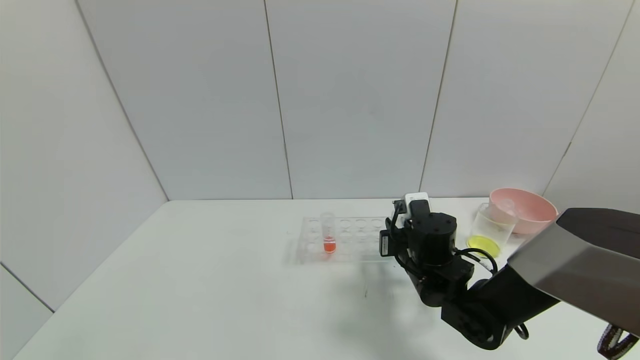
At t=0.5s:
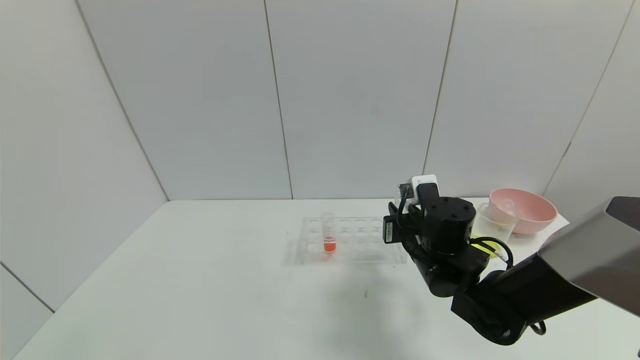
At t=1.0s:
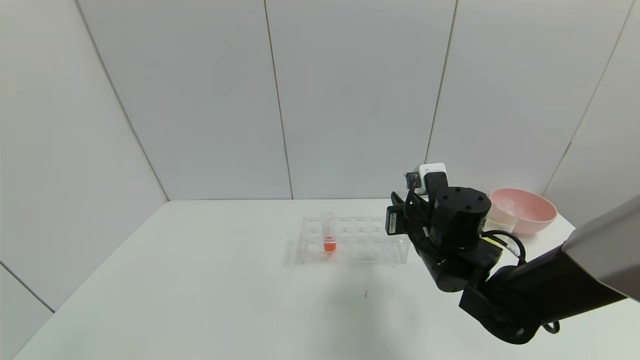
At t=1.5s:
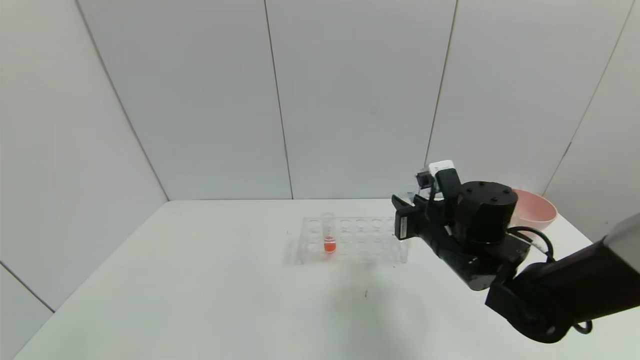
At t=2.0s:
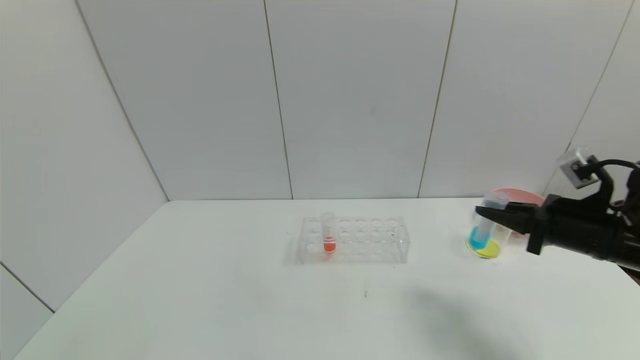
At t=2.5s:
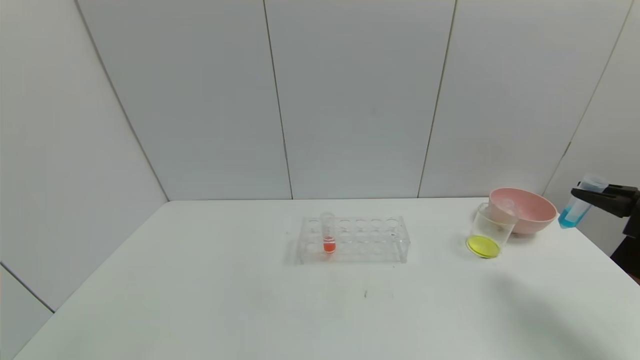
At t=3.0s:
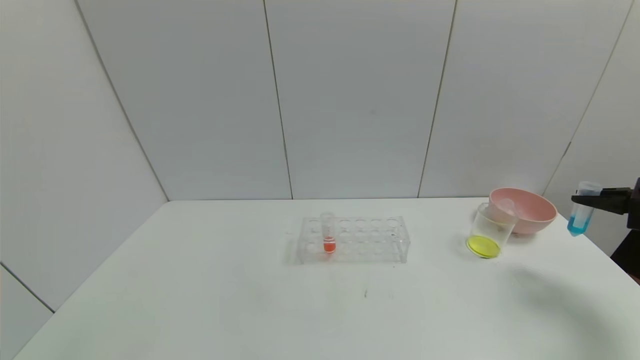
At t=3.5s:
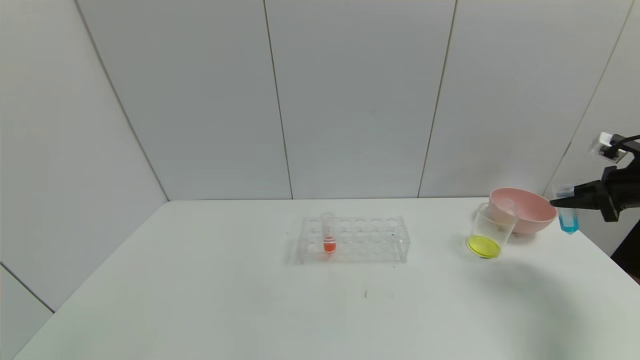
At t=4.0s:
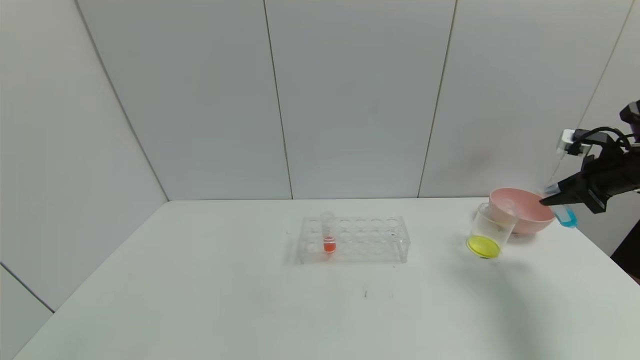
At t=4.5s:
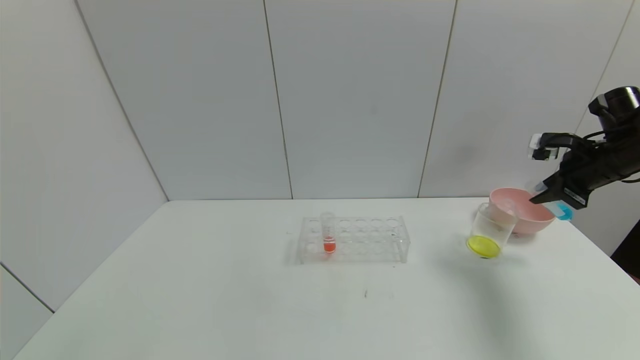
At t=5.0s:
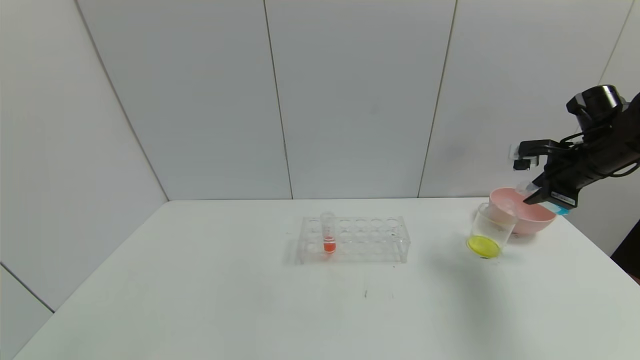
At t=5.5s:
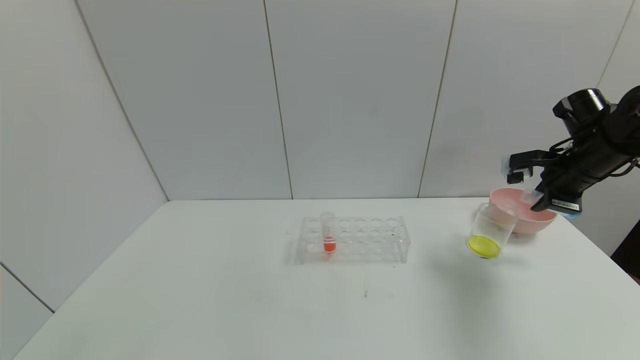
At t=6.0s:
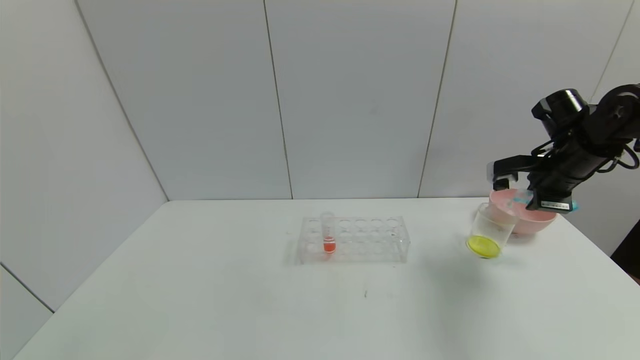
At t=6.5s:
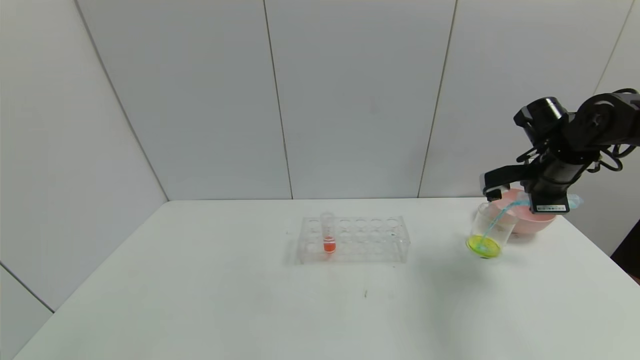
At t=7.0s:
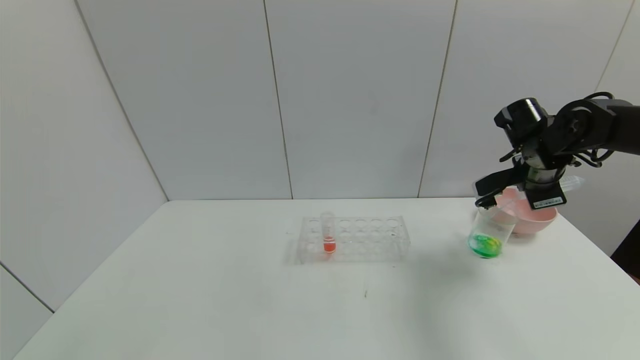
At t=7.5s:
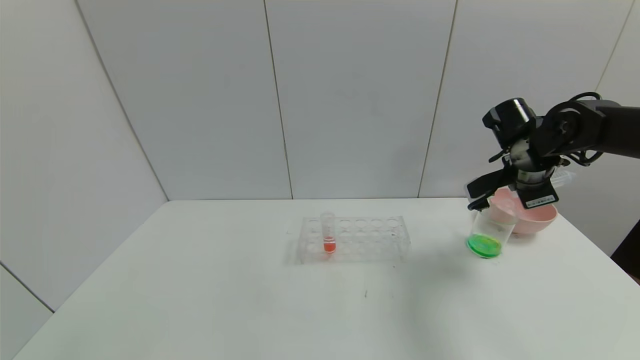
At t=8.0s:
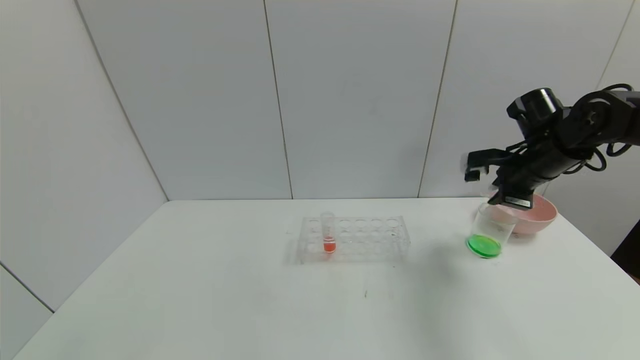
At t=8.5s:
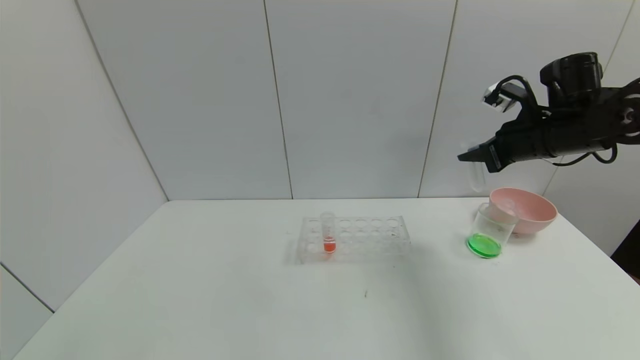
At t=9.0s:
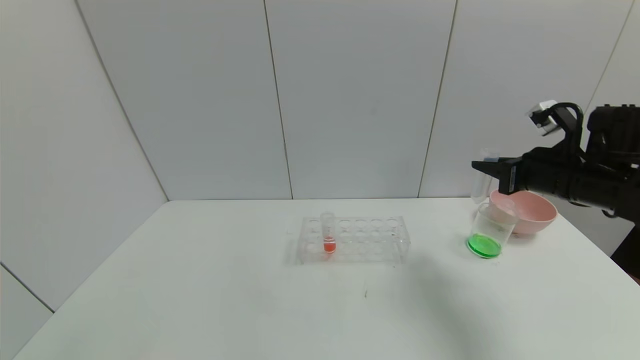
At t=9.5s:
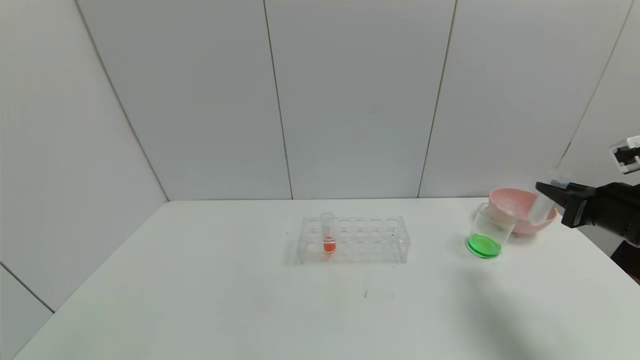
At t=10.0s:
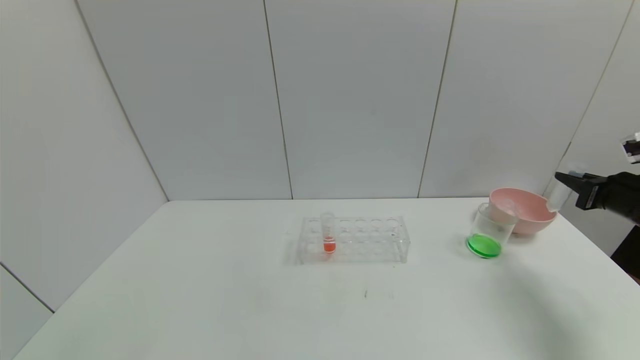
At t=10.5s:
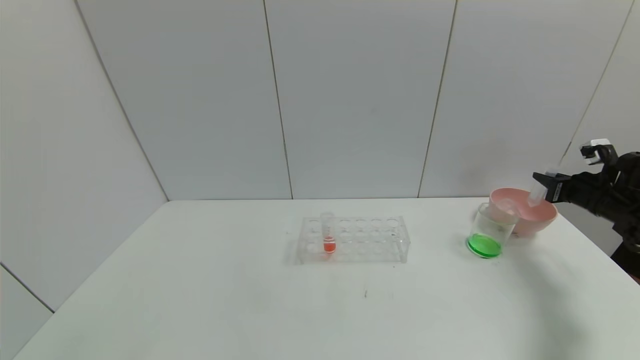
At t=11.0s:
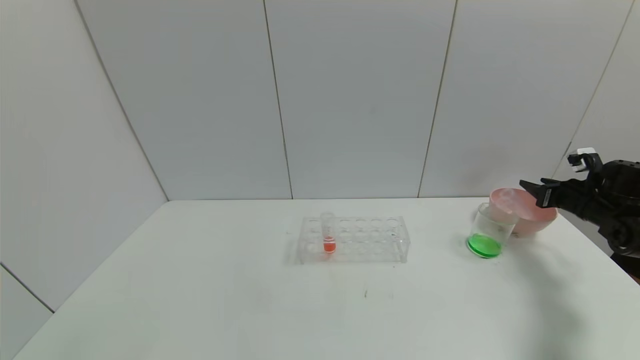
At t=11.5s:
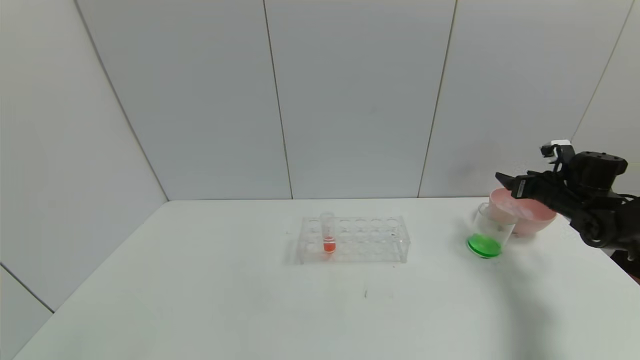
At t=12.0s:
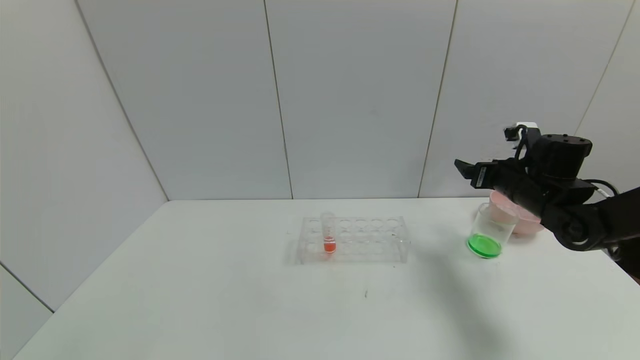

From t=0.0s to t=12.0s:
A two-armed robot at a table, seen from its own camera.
Task of the whole recording: pick up the test tube with yellow pigment and the test tube with blue pigment by grippers and pour them into the beaker.
Step, from t=1.5s to t=9.5s: Pour the blue reagent into the graduated cylinder with the right gripper.
From t=0.0s to t=2.0s: The right gripper travels to the right and upward by roughly 25 cm.
From t=2.0s to t=4.0s: The right gripper shifts about 15 cm to the right, forward and upward.
From t=4.0s to t=6.0s: The right gripper moves to the left, approximately 10 cm.
From t=8.0s to t=10.0s: The right gripper is displaced to the right and backward by roughly 15 cm.
From t=10.0s to t=12.0s: The right gripper moves to the left and forward, about 15 cm, and opens its fingers.

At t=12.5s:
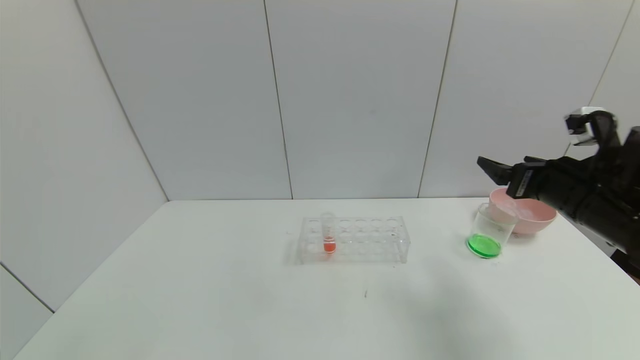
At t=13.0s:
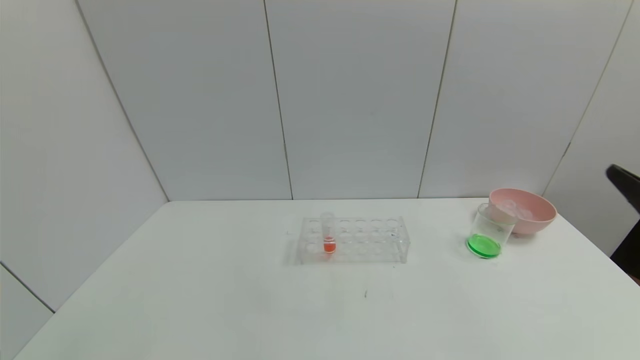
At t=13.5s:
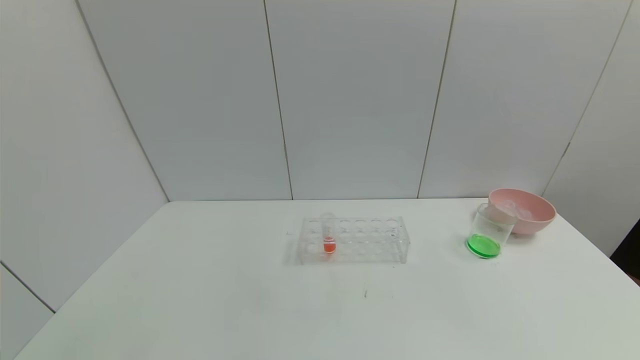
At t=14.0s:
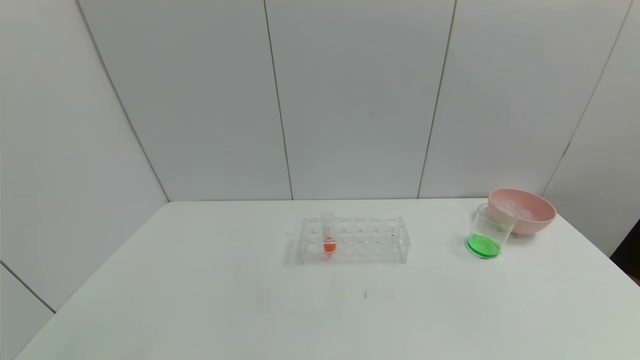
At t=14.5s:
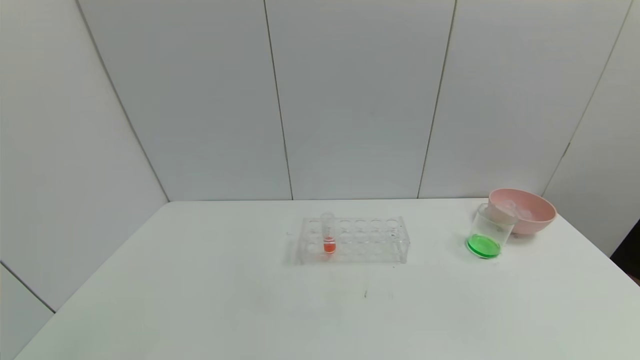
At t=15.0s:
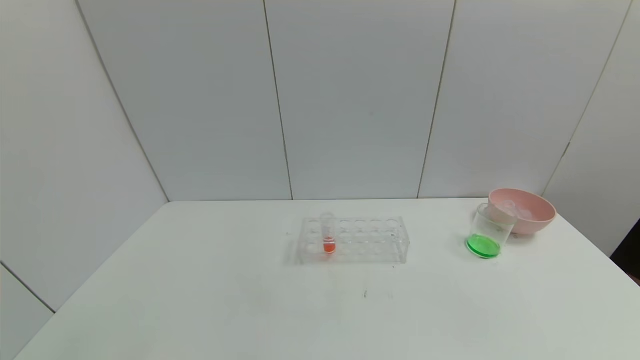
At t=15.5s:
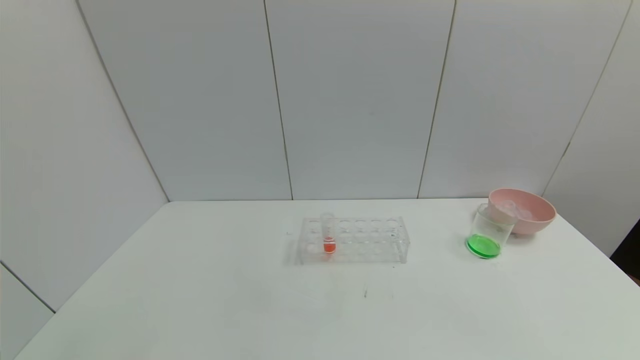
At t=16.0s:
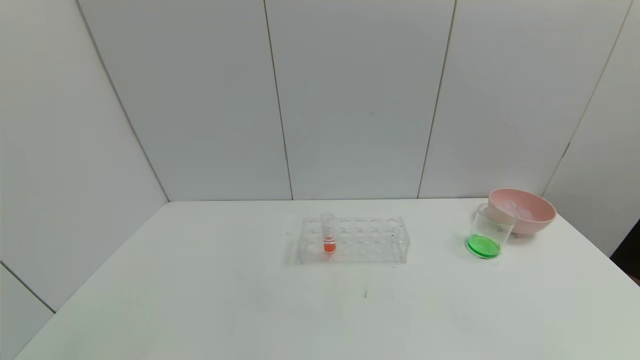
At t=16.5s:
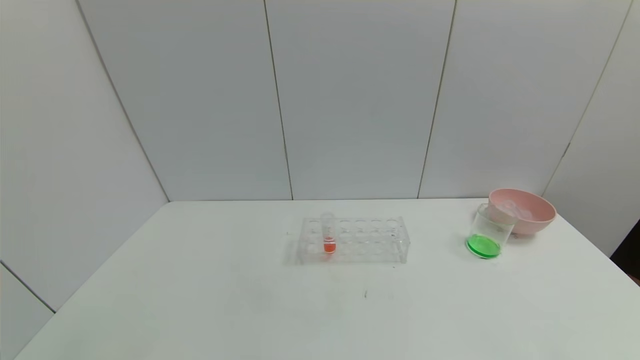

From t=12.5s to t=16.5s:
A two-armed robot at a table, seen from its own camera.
Task of the whole recording: pick up the test tube with yellow pigment and the test tube with blue pigment by grippers and pour them into the beaker.
Step, from t=12.5s to t=14.5s: Place the test tube into the bowl with the right gripper.
From t=12.5s to t=14.5s: The right gripper shifts roughly 30 cm backward.

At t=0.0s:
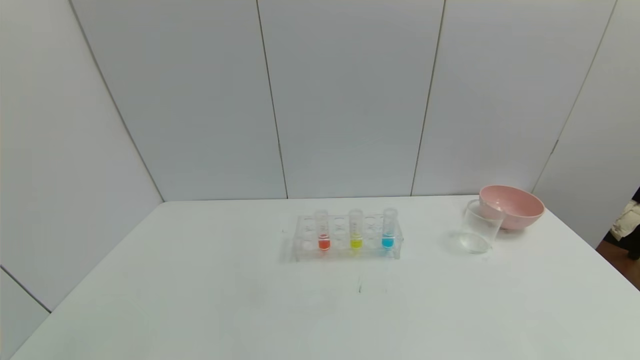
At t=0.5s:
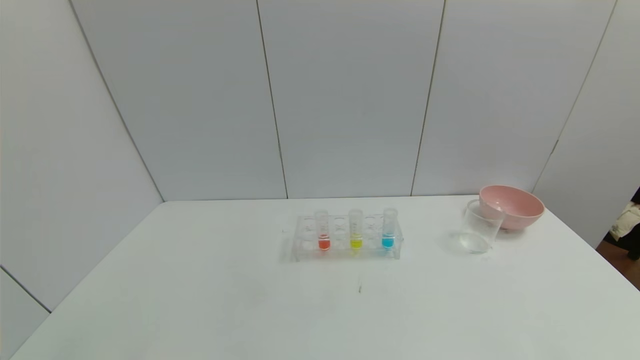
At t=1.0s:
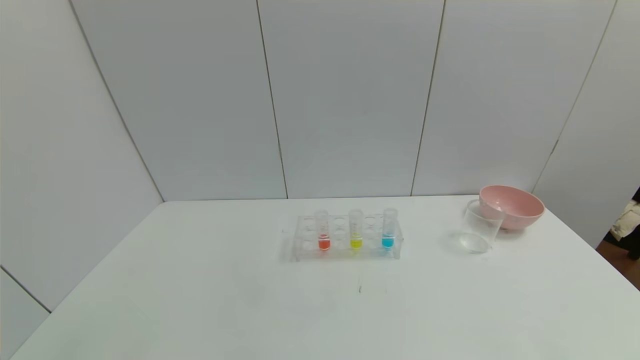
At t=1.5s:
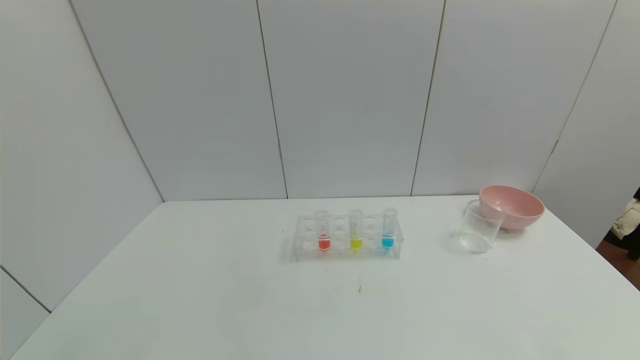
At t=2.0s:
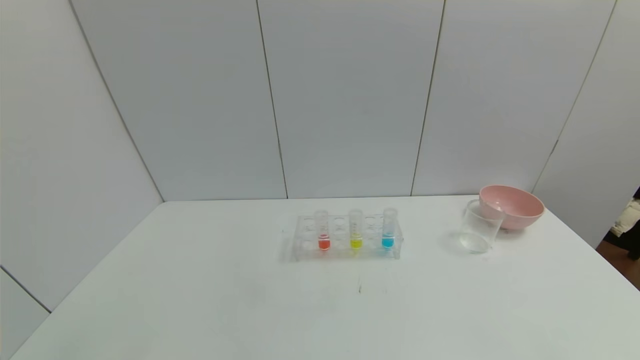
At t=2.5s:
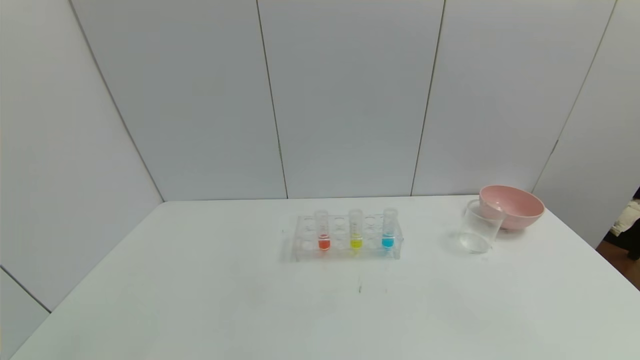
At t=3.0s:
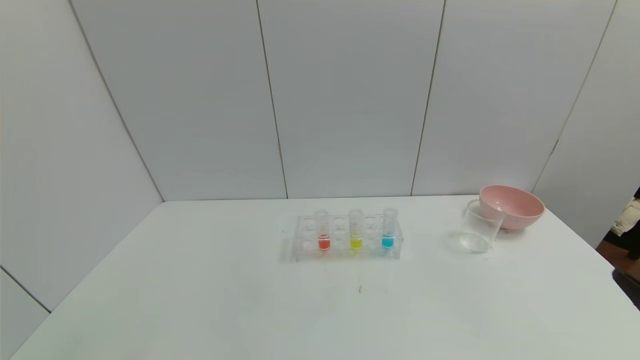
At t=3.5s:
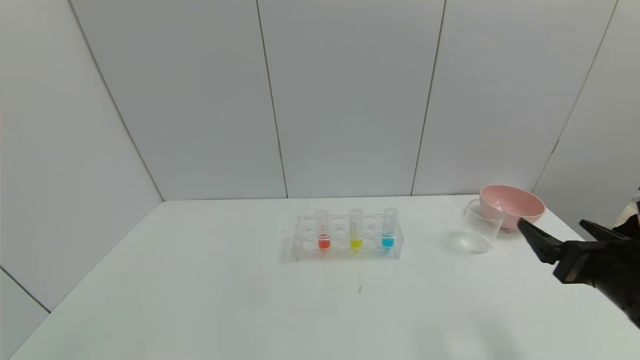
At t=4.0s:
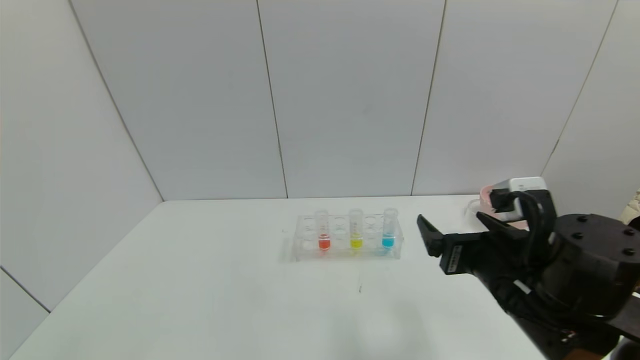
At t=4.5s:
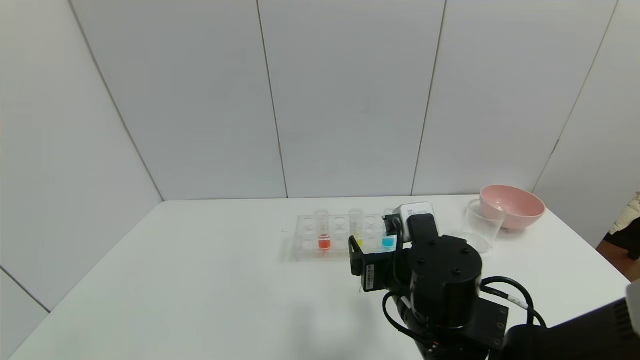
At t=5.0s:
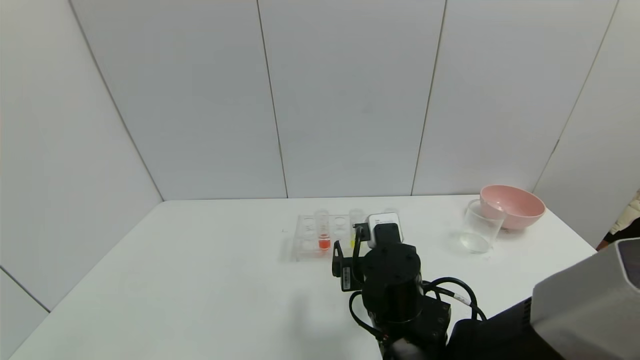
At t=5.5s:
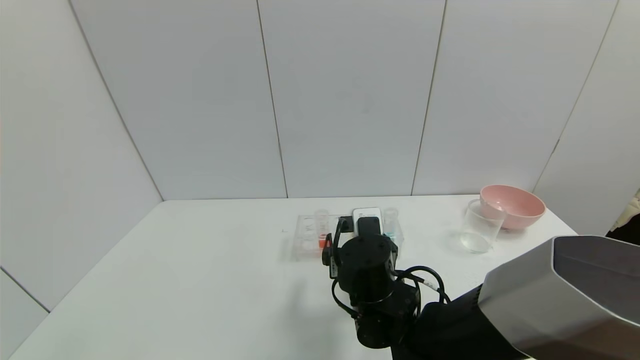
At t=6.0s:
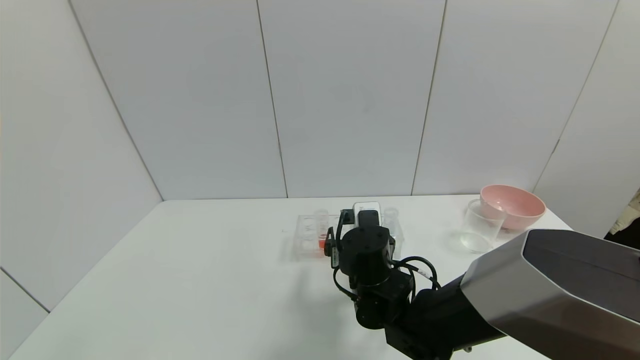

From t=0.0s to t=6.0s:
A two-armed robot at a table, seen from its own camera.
Task of the whole recording: pick up the test tube with yellow pigment and the test tube with blue pigment by grippers and pour them into the beaker.
From t=0.0s to t=2.0s: The two grippers keep their place.
From t=2.0s to t=4.0s: The right gripper shifts roughly 30 cm forward and to the left.
From t=4.0s to t=6.0s: The right gripper goes some 20 cm to the left, forward and downward.
